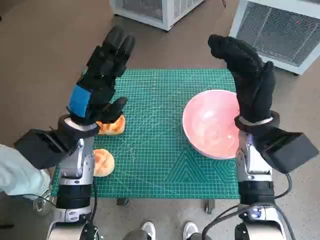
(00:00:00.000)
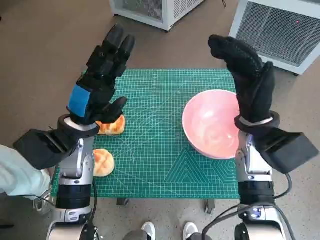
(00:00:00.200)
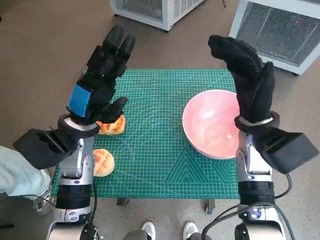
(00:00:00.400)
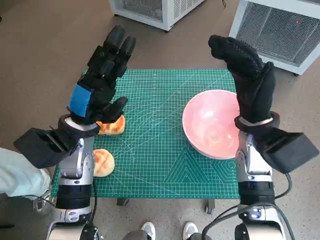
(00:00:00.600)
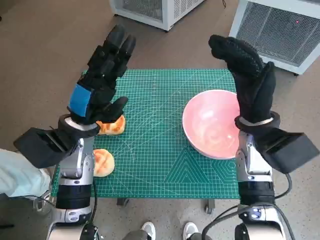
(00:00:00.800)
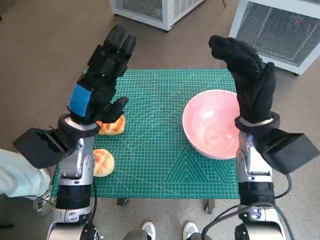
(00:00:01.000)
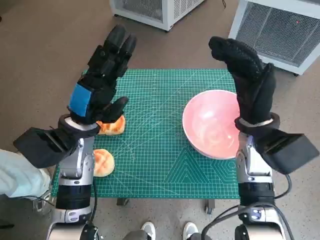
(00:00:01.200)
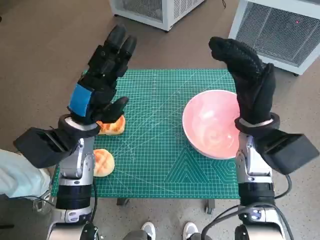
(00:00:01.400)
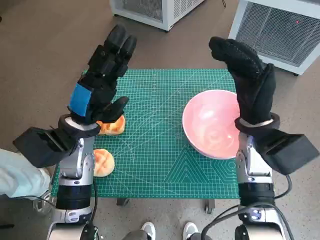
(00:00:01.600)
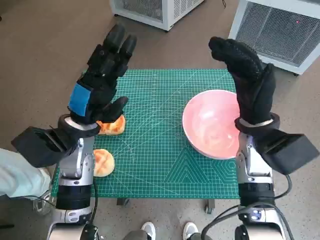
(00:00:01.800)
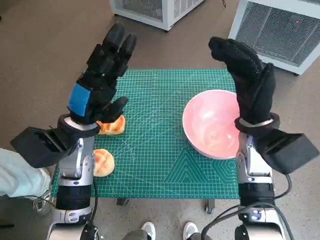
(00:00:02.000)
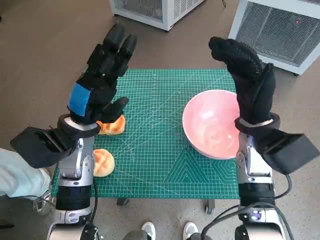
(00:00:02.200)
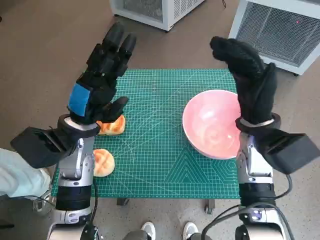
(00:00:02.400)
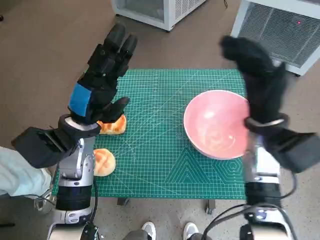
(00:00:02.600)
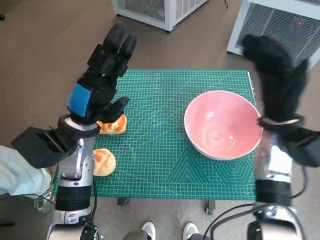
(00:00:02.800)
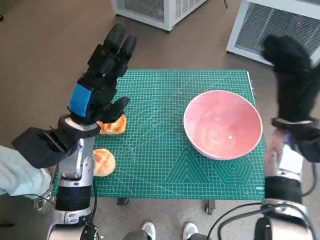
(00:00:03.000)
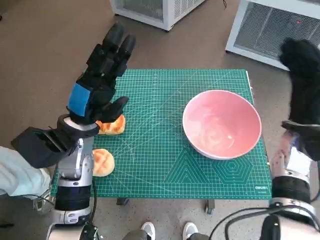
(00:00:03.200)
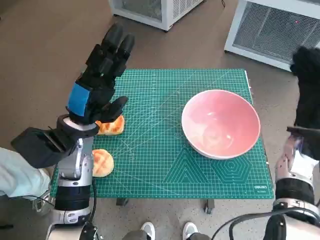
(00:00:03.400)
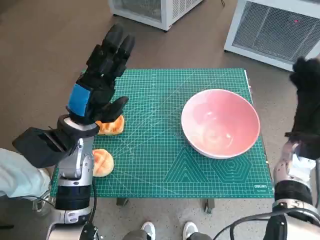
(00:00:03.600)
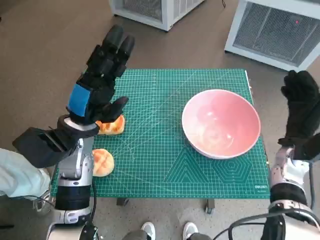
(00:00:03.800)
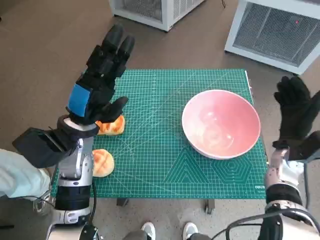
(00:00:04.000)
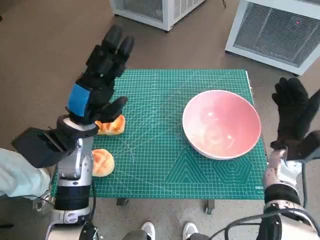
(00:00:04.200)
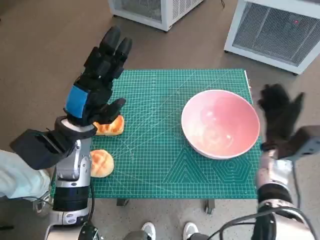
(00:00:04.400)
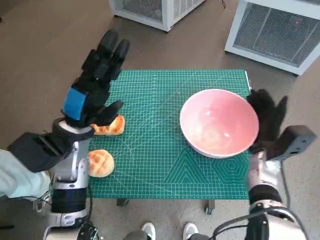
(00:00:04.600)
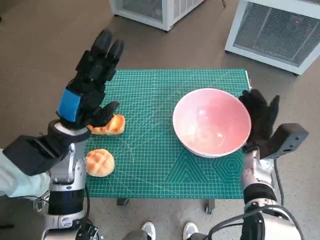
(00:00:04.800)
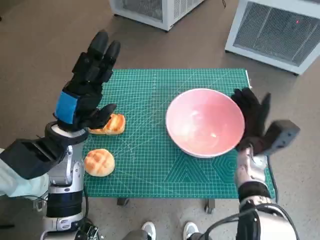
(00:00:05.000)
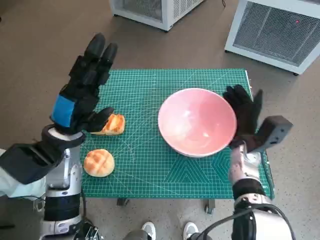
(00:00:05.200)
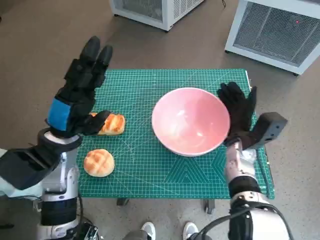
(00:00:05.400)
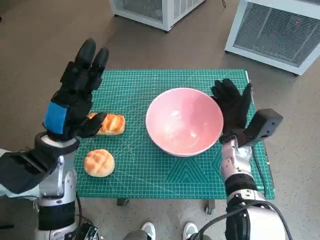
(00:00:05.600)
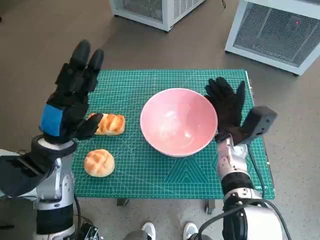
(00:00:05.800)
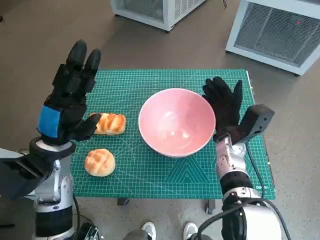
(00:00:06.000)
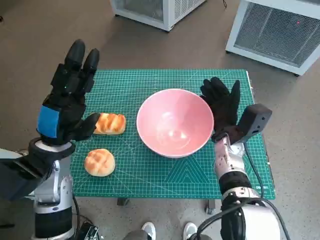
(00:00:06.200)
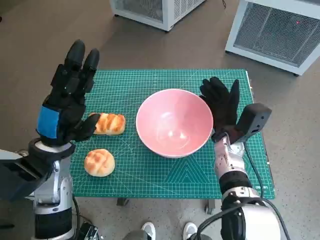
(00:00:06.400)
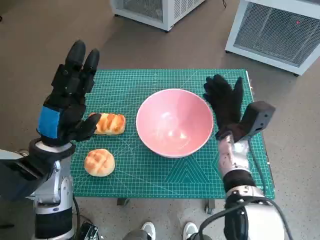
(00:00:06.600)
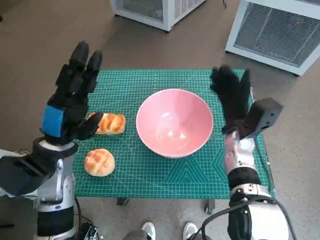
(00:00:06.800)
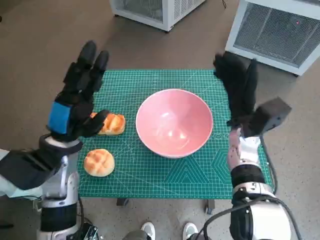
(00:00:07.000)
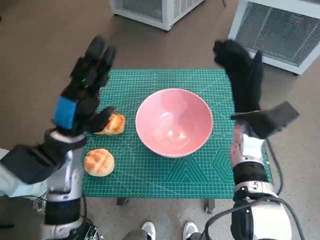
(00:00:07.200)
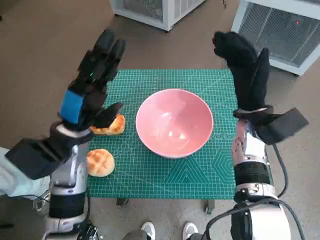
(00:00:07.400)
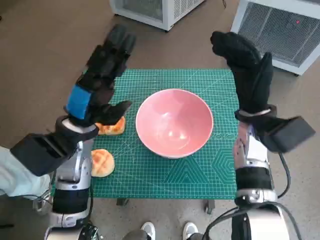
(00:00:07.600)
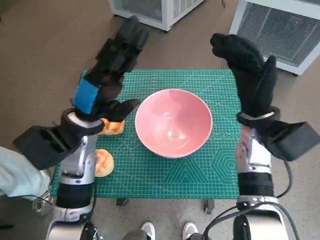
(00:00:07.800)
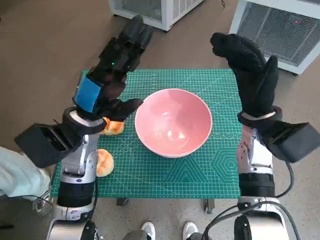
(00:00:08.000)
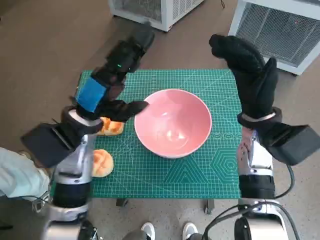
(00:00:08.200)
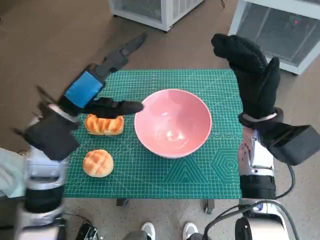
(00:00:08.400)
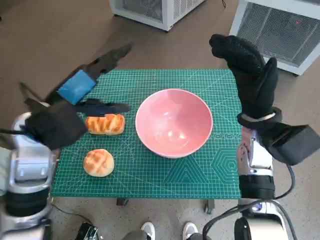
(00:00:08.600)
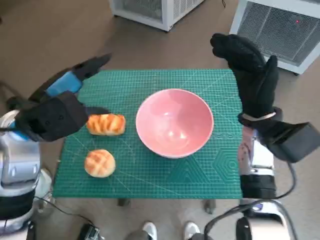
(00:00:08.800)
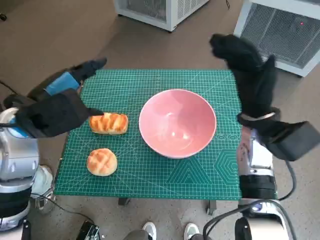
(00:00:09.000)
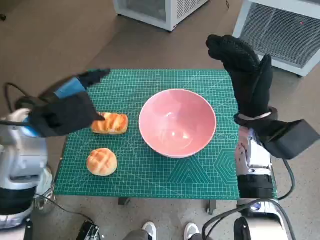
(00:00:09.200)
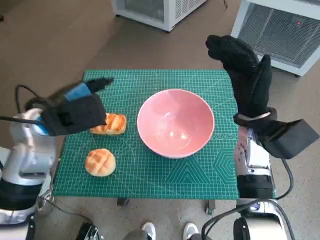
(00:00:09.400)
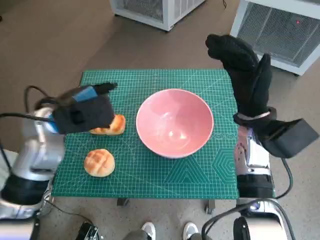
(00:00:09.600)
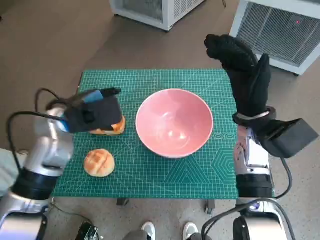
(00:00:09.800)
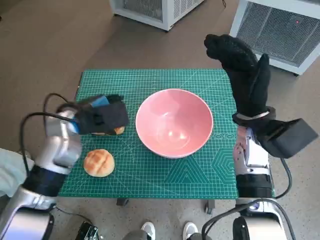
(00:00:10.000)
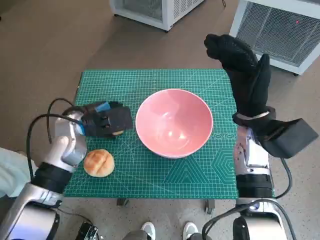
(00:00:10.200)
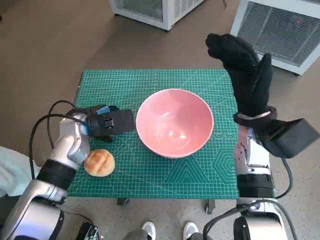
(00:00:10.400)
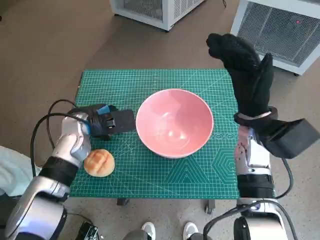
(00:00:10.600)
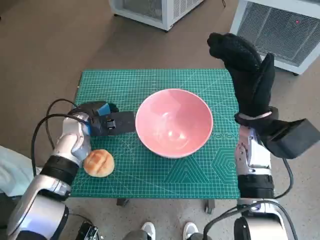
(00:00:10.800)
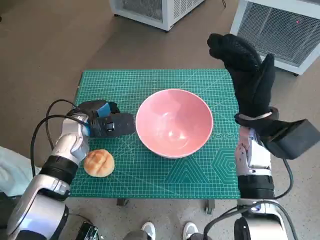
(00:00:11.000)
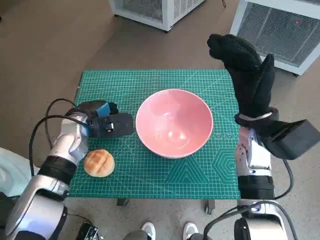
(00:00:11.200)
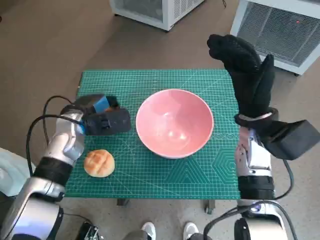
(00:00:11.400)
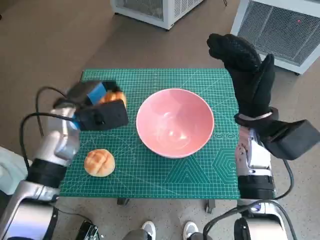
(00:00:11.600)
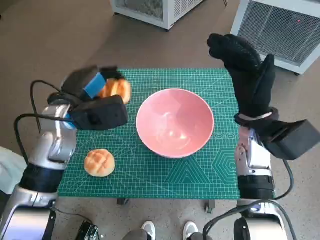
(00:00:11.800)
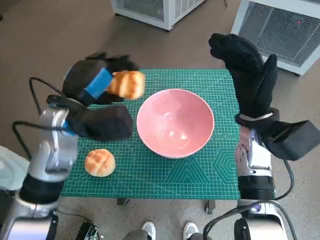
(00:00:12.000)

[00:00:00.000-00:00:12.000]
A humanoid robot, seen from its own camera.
Task of the whole recording: Push the bowl into the center of the table and put the bread into the bowl.
Step, 00:00:00.000 to 00:00:06.400: Move the pink bowl to the center of table with right hand.
Step, 00:00:06.800 to 00:00:10.600: Grasp the long bread with left hand.
00:00:01.600 to 00:00:03.000: The right hand shifts some 5 cm to the right.
00:00:03.000 to 00:00:04.400: The right hand travels downward by approximately 10 cm.
00:00:04.400 to 00:00:06.000: The left hand ends up roughly 5 cm from where it was. The right hand goes approximately 10 cm to the left.
00:00:06.000 to 00:00:07.600: The right hand heads upward, covering roughly 10 cm. Meanwhile the left hand ends up some 5 cm from where it was.
00:00:07.600 to 00:00:09.000: The left hand shifts about 10 cm upward and to the left.
00:00:09.000 to 00:00:10.400: The left hand shifts about 15 cm downward and forward.
00:00:10.400 to 00:00:12.000: The left hand heads upward, covering roughly 10 cm.

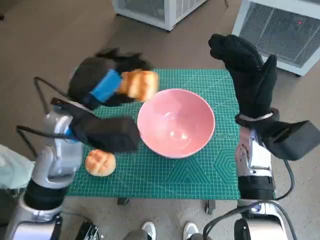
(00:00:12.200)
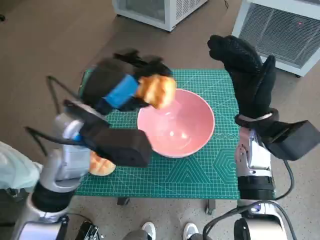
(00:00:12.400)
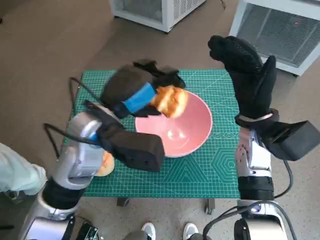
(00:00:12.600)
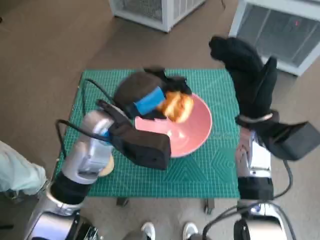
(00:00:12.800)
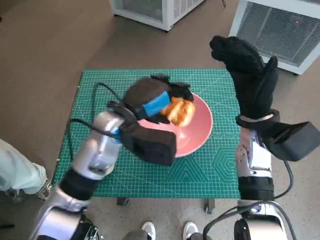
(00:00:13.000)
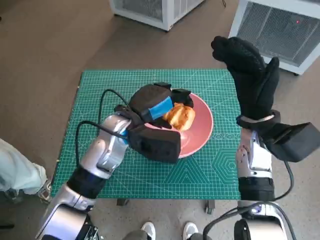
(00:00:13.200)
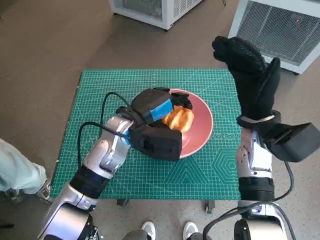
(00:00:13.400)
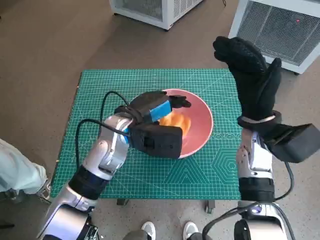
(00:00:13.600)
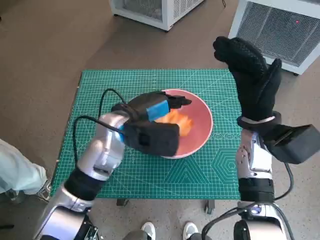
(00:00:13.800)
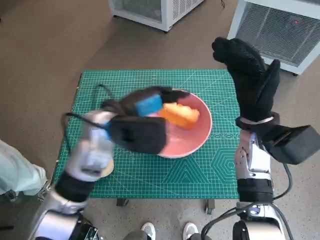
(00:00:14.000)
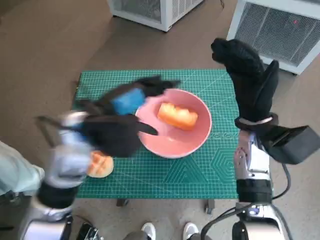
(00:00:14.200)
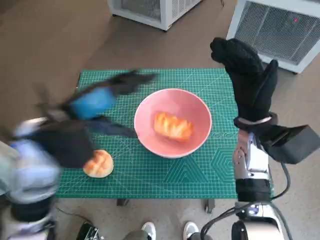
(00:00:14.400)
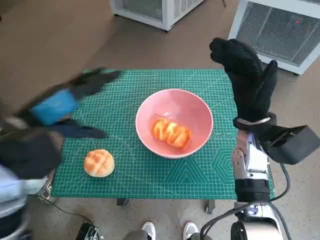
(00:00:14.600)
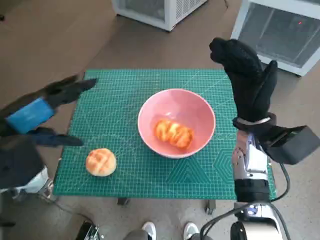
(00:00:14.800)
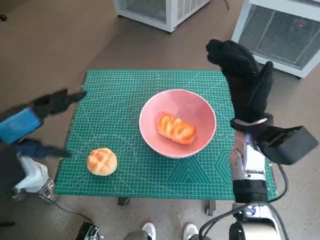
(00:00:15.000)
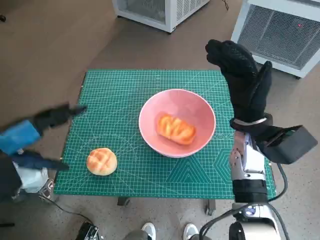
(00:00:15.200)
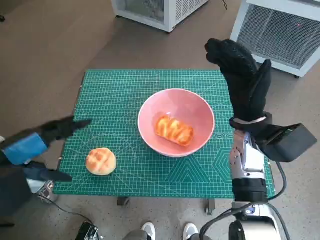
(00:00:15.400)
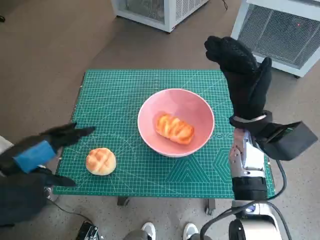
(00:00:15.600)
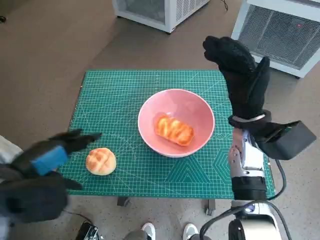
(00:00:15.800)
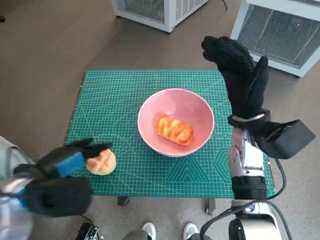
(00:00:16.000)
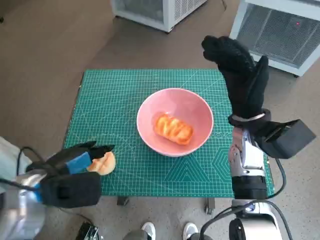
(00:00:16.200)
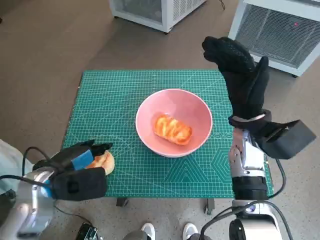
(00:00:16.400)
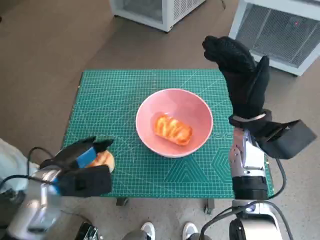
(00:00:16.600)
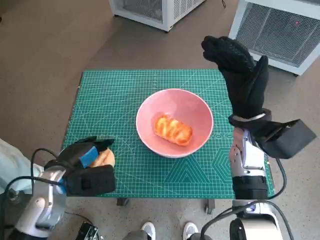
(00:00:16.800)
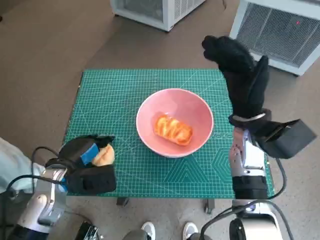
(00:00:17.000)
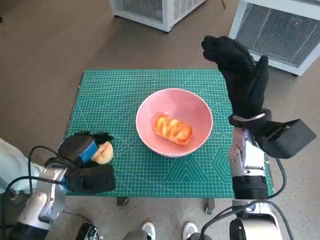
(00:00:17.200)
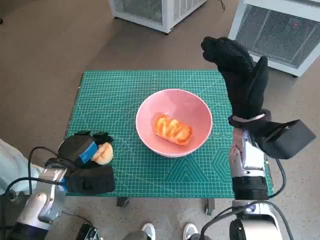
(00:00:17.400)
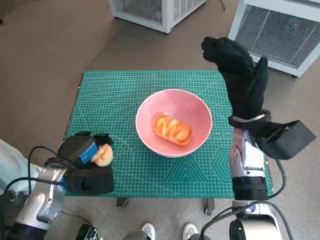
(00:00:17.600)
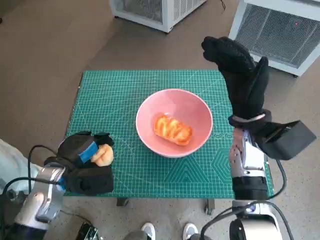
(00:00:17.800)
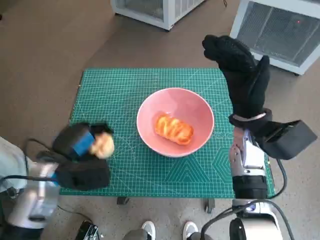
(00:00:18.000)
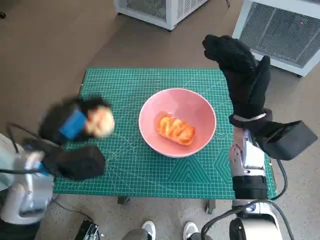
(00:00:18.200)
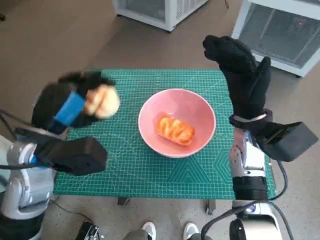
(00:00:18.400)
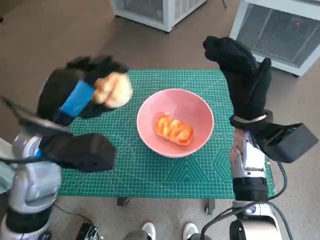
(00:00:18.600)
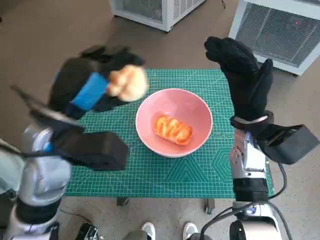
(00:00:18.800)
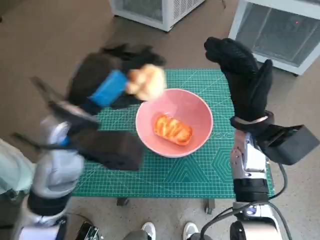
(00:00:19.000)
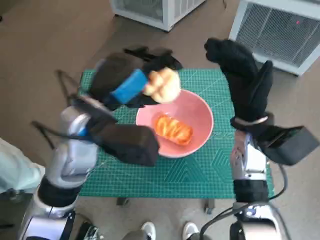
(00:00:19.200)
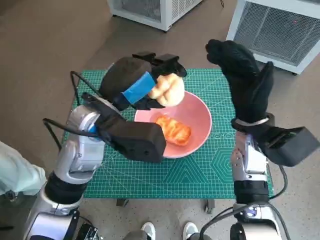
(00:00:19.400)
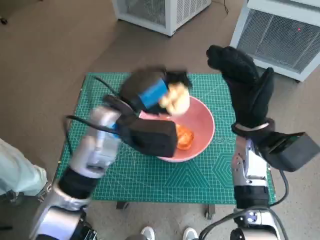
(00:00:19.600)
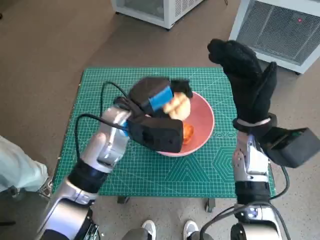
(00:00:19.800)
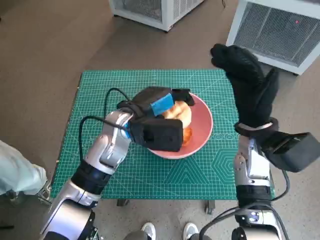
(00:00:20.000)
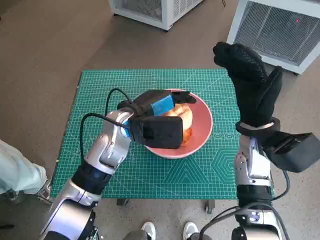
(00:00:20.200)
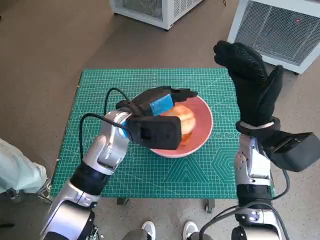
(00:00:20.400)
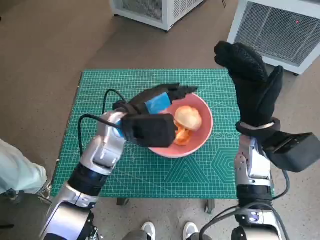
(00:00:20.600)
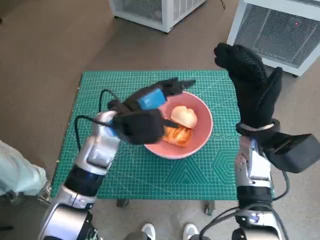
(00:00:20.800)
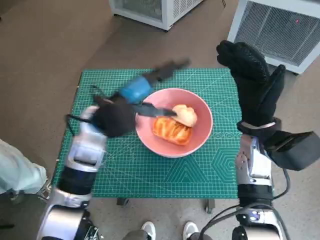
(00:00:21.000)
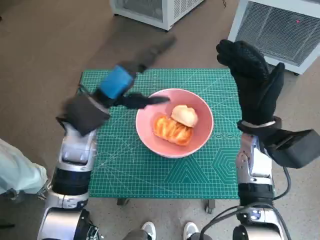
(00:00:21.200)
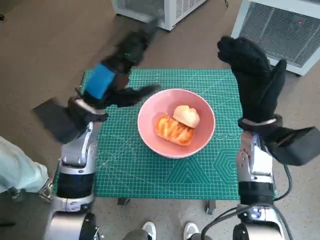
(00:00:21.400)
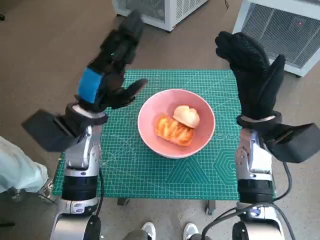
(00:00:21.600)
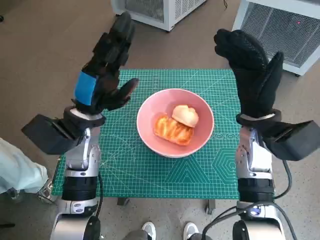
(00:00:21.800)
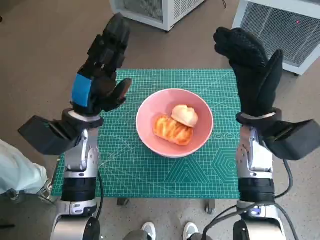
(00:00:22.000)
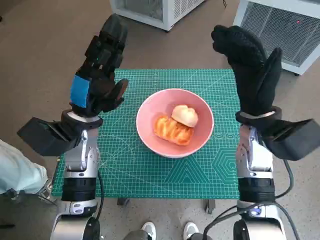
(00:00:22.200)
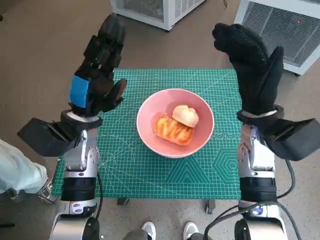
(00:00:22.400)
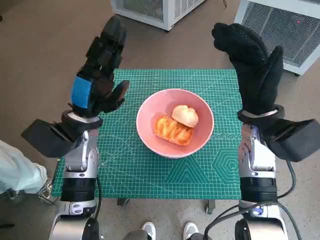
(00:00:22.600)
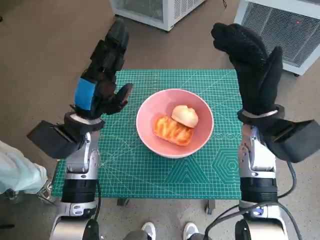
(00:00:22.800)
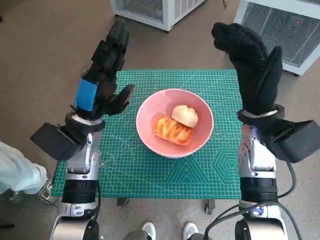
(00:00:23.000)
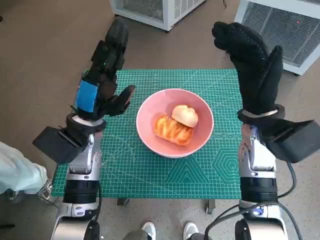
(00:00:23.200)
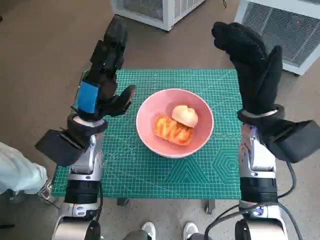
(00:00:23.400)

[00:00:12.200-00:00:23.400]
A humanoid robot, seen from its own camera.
Task of the whole recording: Push the bowl into the center of the table and put the bread into the bowl.
Step, 00:00:12.200 to 00:00:13.600: Place the long bread in pink bowl with left hand.
Step, 00:00:13.800 to 00:00:16.800: Grasp the round bread with left hand.
Step, 00:00:17.000 to 00:00:20.400: Place the round bread in pink bowl with left hand.
00:00:12.200 to 00:00:13.800: The left hand goes about 10 cm to the right and downward.
00:00:13.800 to 00:00:15.400: The left hand is displaced to the left and backward by approximately 20 cm.
00:00:15.400 to 00:00:17.000: The left hand goes roughly 15 cm downward.
00:00:17.000 to 00:00:18.600: The left hand shifts roughly 15 cm upward.
00:00:18.600 to 00:00:20.200: The left hand heads to the right, forward and downward, covering about 15 cm.
00:00:20.200 to 00:00:21.800: The left hand travels to the left by approximately 5 cm.
00:00:21.800 to 00:00:23.400: The hands move only a little.
